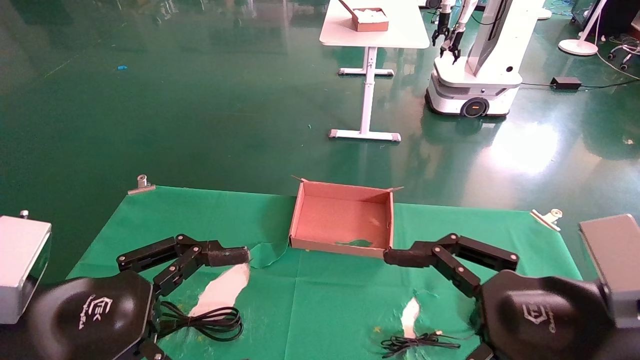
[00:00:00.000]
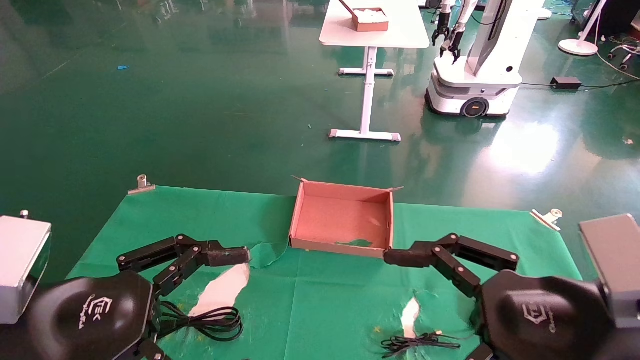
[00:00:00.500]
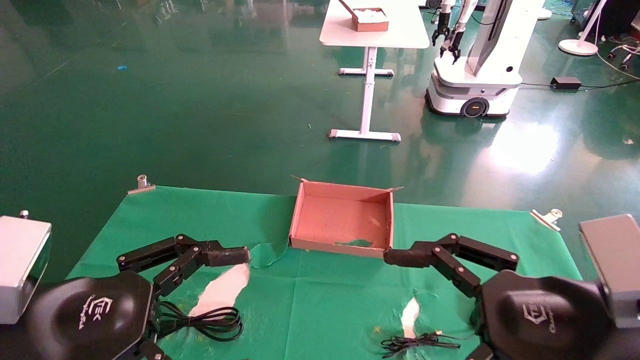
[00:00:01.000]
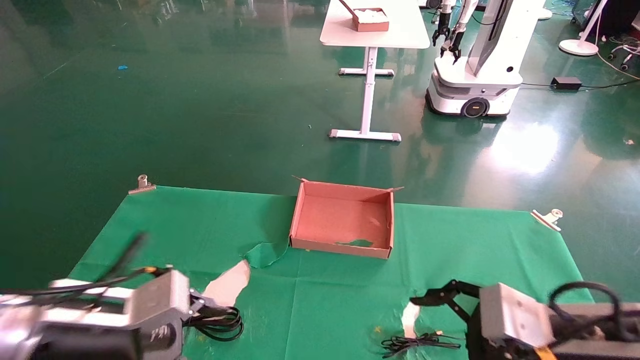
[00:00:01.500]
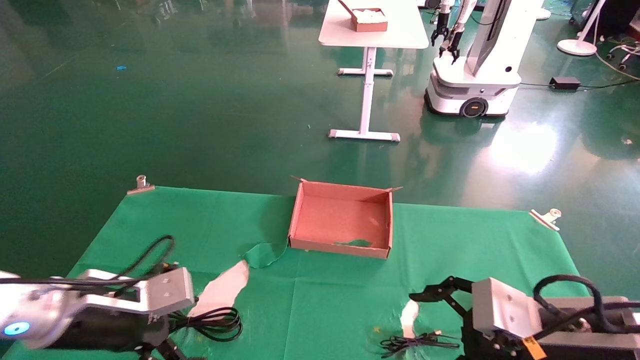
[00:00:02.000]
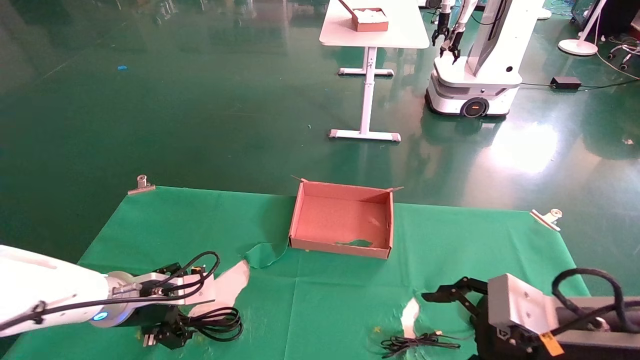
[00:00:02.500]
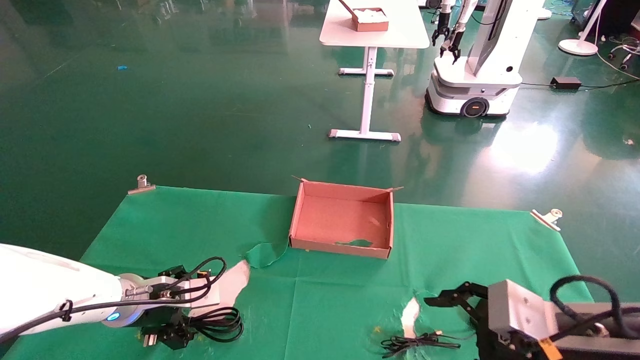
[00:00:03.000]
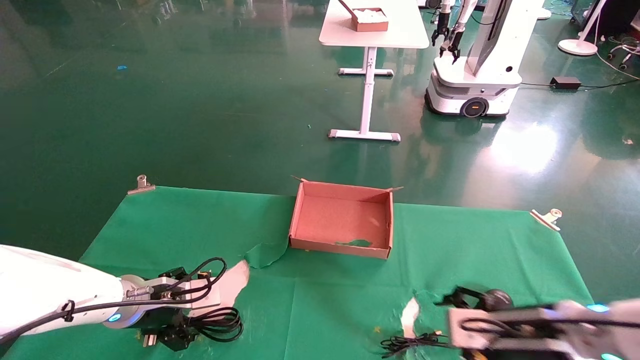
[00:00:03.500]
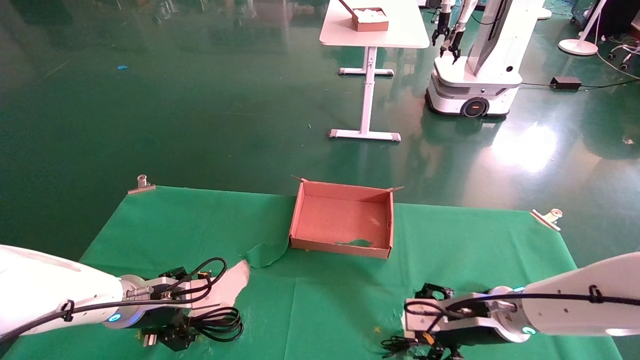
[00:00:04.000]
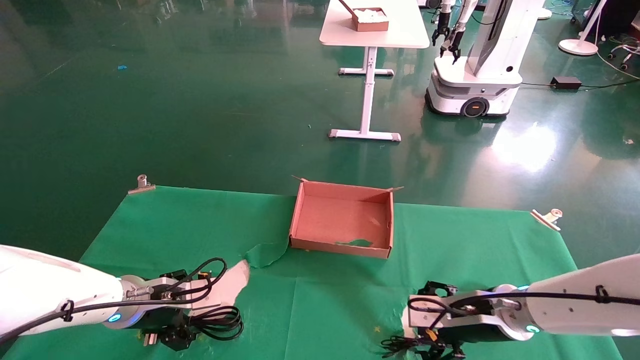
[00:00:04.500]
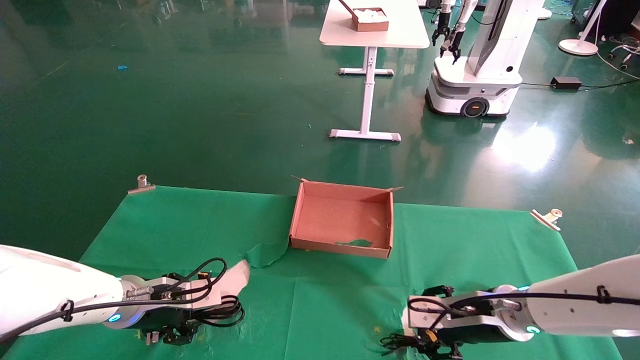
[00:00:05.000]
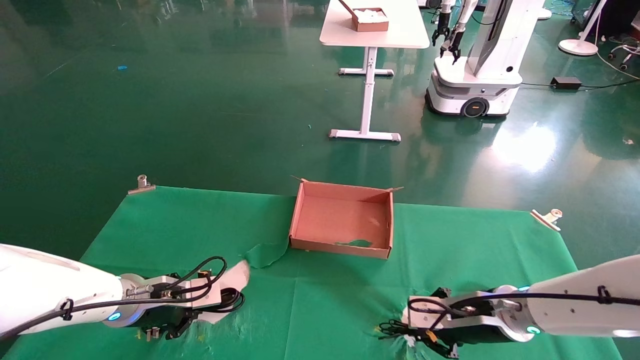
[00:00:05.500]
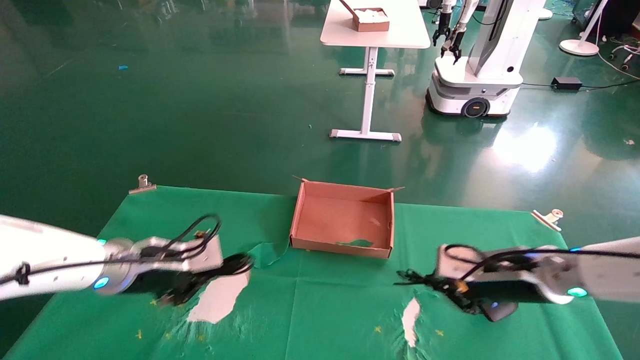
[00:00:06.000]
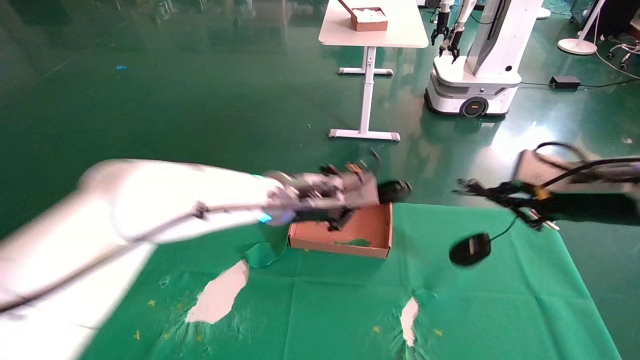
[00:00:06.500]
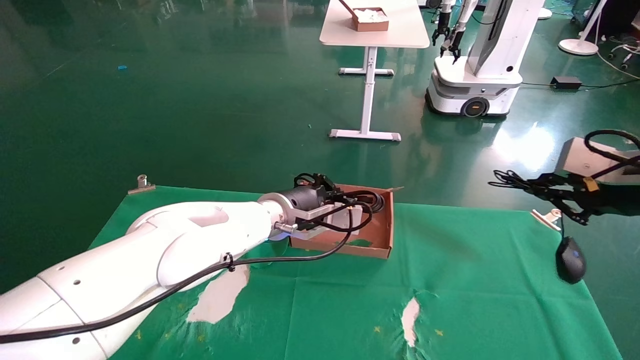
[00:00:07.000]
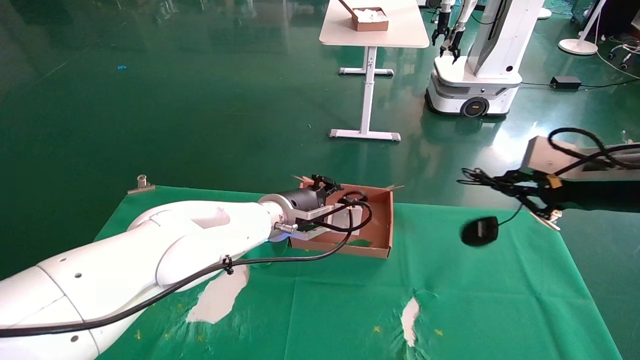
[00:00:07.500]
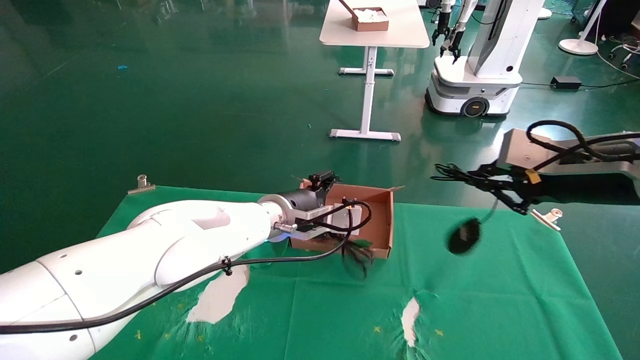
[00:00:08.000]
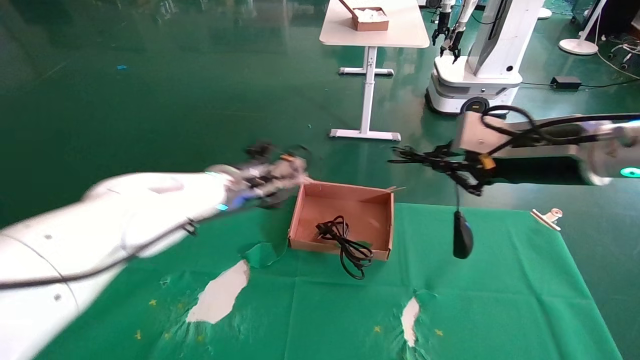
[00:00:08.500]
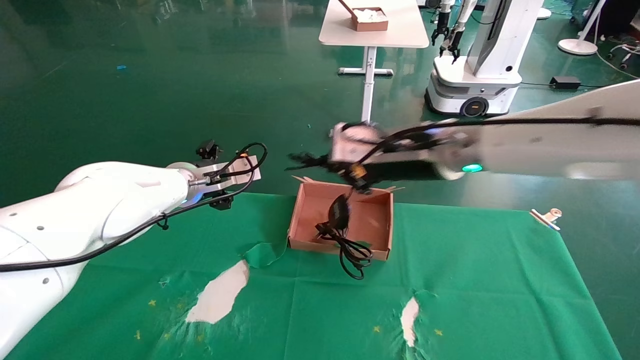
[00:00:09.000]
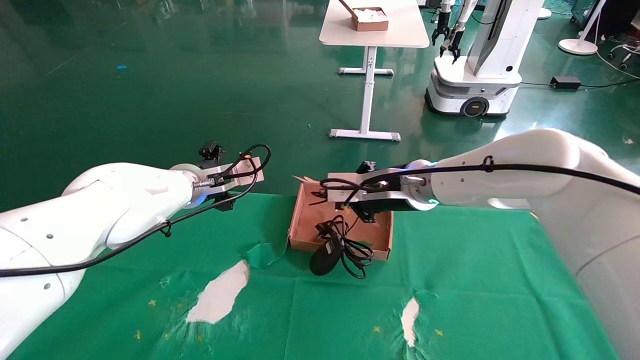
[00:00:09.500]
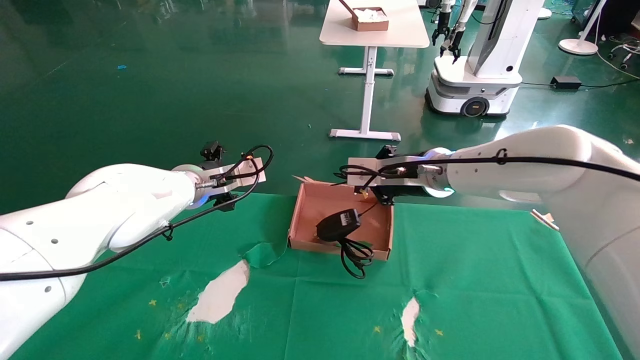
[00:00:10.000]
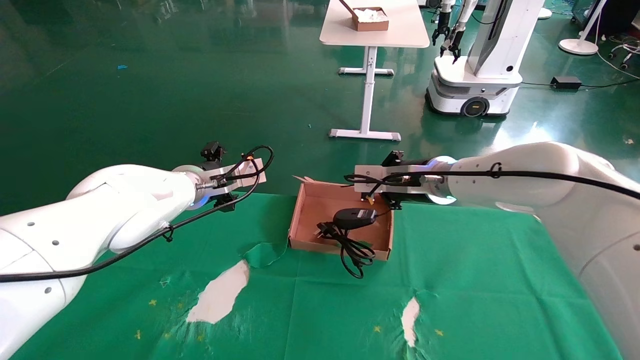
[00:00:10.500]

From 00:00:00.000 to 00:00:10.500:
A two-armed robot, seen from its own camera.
Step, from 00:00:01.500 to 00:00:05.500: Grab and lift both the mouse and power cord from the accessory packaging area at the same time.
From 00:00:00.000 to 00:00:02.000: The right gripper goes some 10 cm forward and downward. Meanwhile the left gripper goes some 15 cm forward and downward.
From 00:00:02.000 to 00:00:04.000: The right gripper is displaced forward and downward by roughly 15 cm; the left gripper moves forward, about 10 cm.
From 00:00:04.000 to 00:00:06.500: The left gripper heads to the right and upward, covering about 25 cm, and closes up; the right gripper goes roughly 20 cm upward and to the right, and closes.
From 00:00:06.500 to 00:00:08.500: The right gripper goes roughly 10 cm to the left and upward; the left gripper shifts some 10 cm to the left and forward, and opens its fingers.
From 00:00:08.500 to 00:00:10.500: The right gripper shifts some 20 cm forward, to the left and downward.

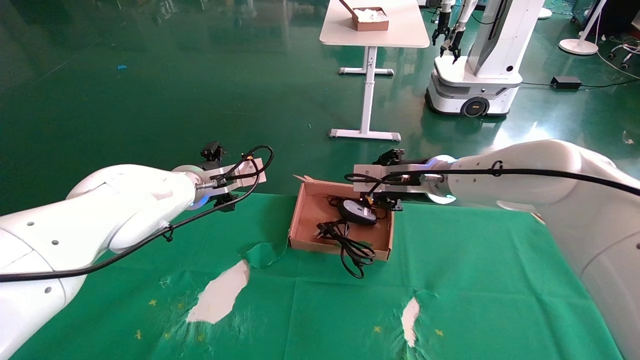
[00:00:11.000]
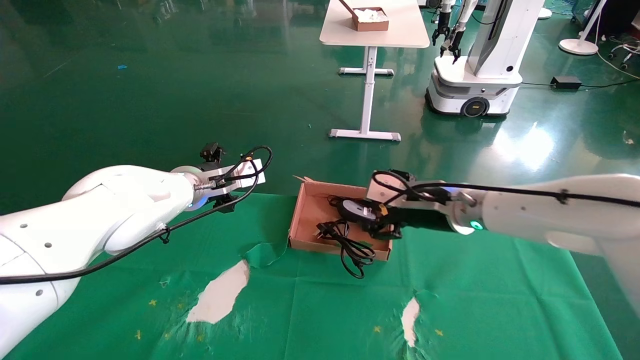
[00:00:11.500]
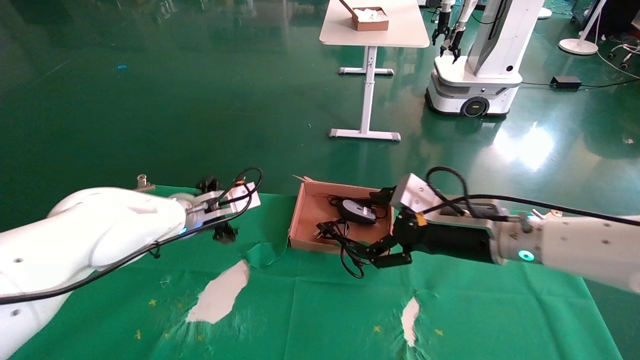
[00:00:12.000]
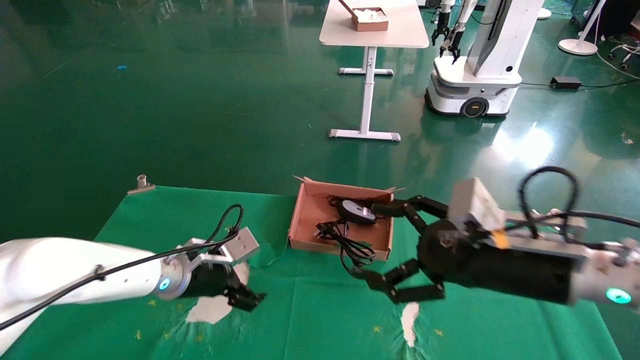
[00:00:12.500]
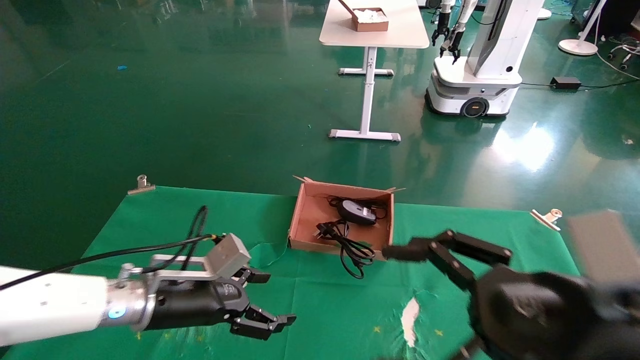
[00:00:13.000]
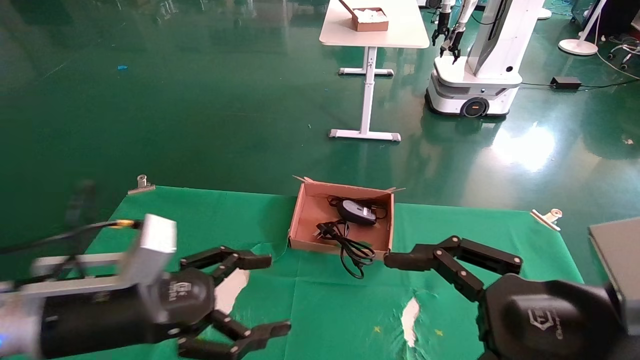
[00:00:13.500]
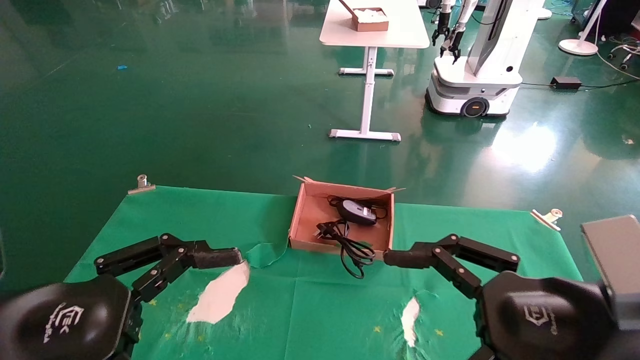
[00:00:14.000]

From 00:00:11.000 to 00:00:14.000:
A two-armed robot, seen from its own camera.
From 00:00:11.000 to 00:00:12.500: The right gripper heads backward and to the right, covering roughly 20 cm, and opens up. Meanwhile the left gripper moves downward and backward, roughly 15 cm.
From 00:00:12.500 to 00:00:14.000: The left gripper travels backward by some 25 cm; the right gripper is displaced backward by approximately 10 cm.

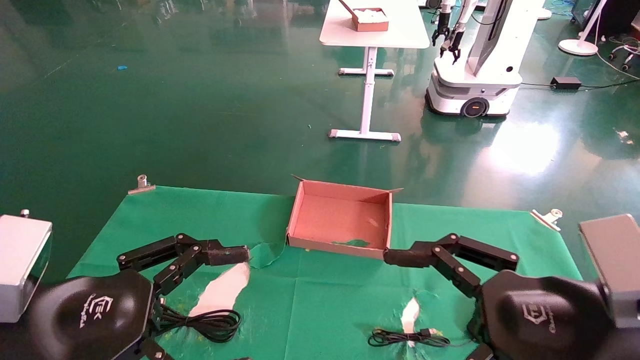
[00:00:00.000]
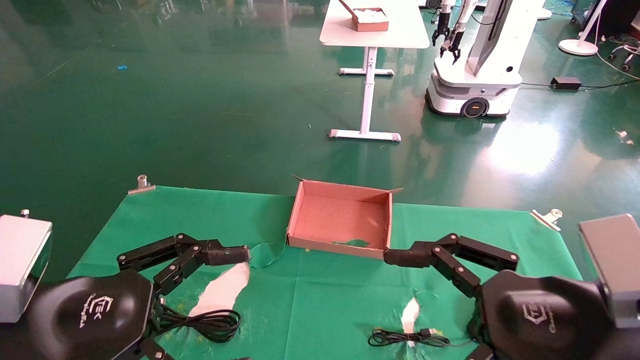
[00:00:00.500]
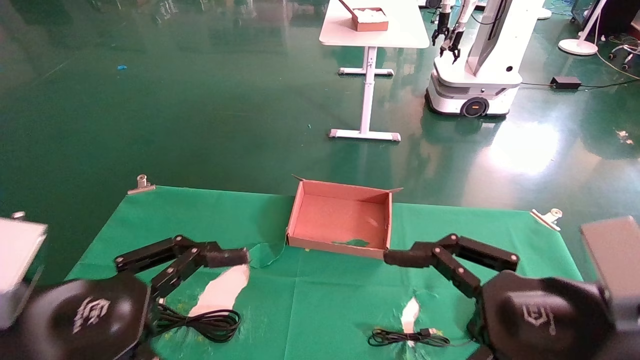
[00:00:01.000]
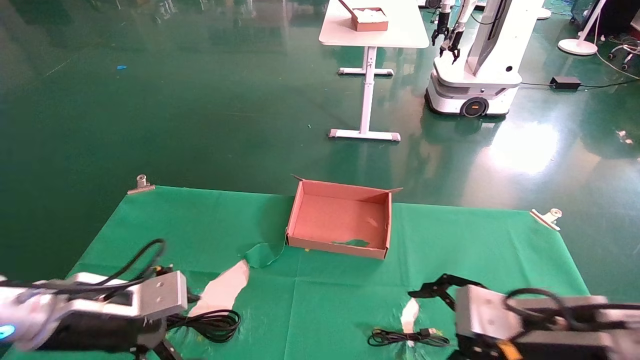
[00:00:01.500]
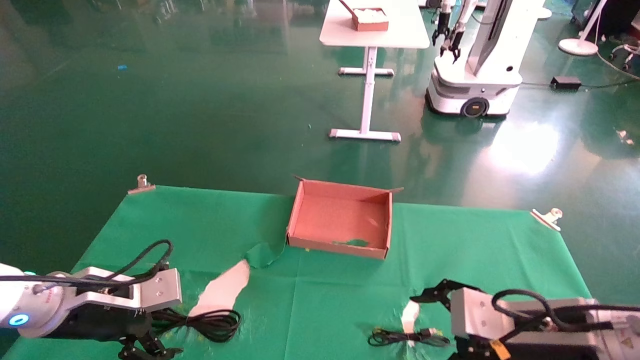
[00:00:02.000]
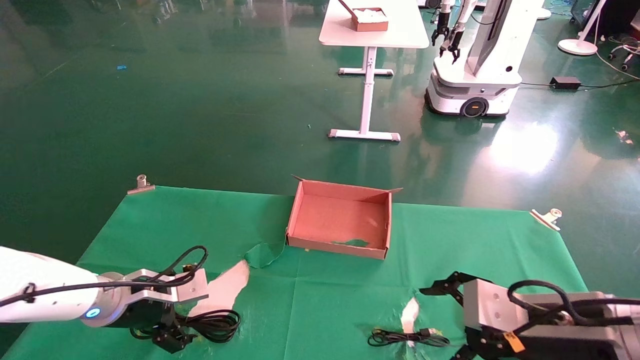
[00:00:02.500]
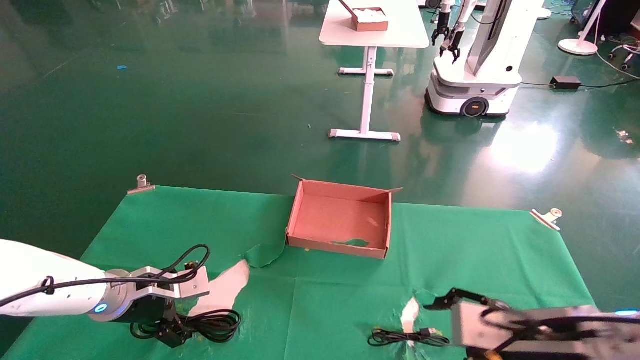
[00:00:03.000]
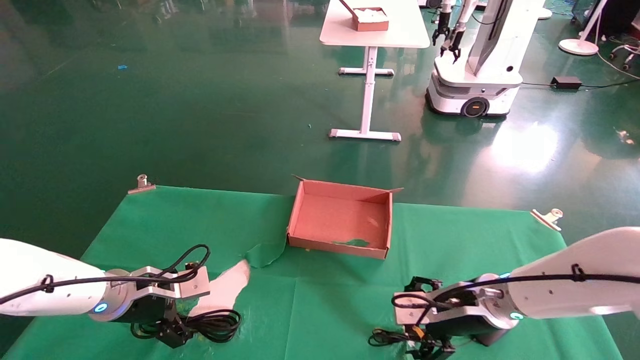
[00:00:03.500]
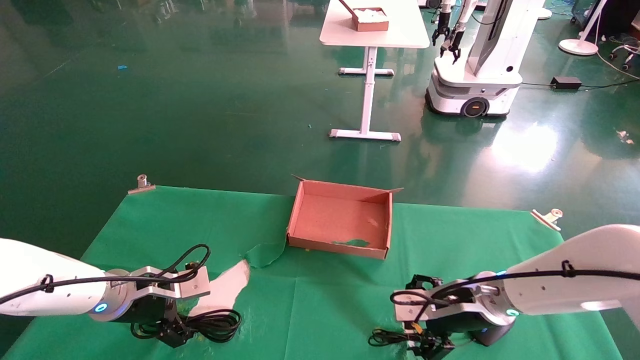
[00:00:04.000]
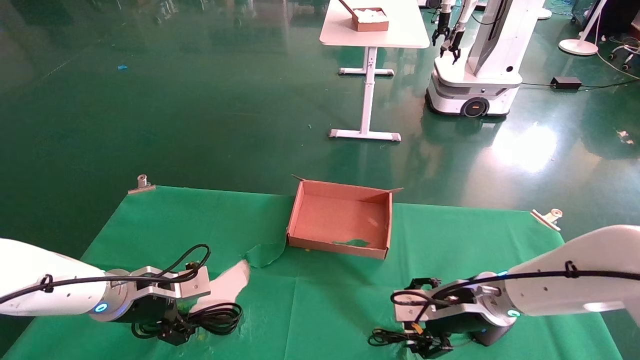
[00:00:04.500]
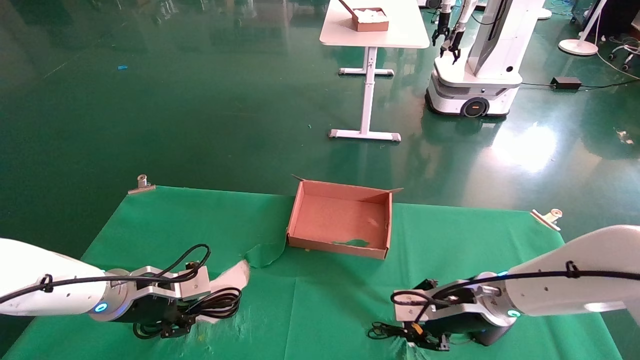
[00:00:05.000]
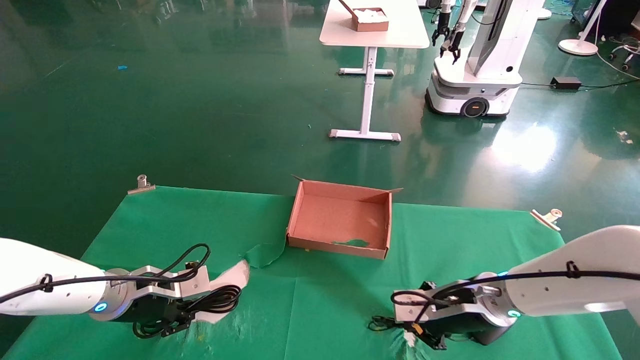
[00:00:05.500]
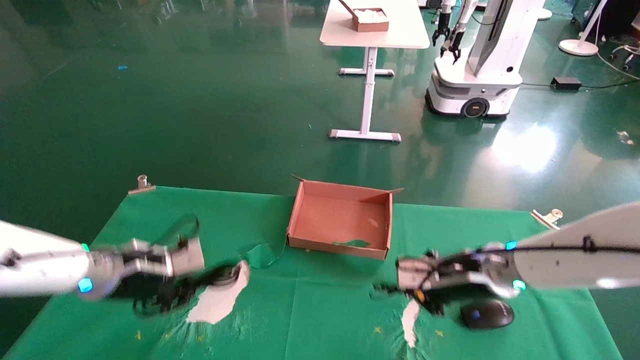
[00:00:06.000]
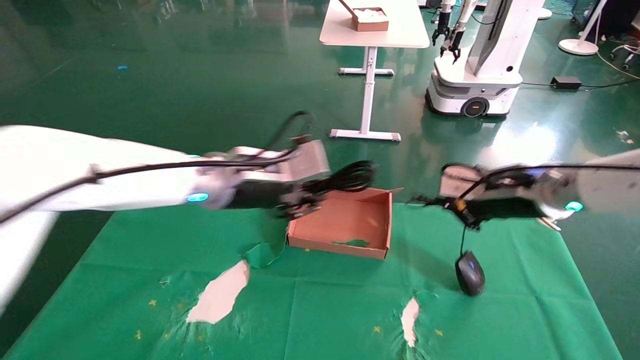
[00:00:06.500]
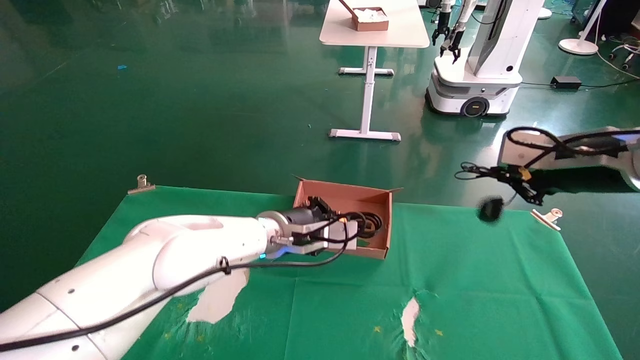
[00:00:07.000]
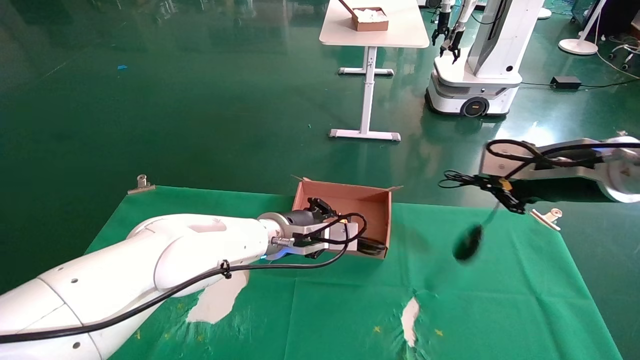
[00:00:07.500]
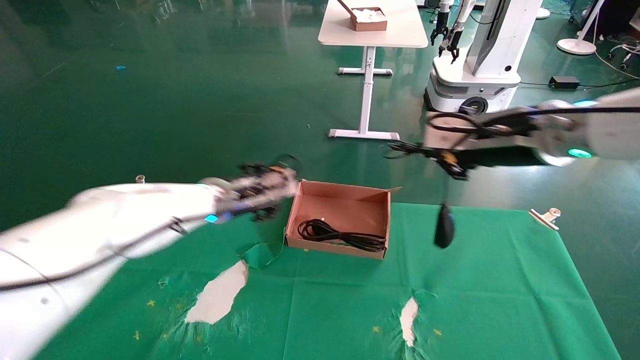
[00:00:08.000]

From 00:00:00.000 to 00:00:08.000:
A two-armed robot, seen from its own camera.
Step, from 00:00:01.500 to 00:00:06.000: Grab and lift both the mouse and power cord from the accessory packaging area at the same time.
From 00:00:00.000 to 00:00:02.000: Both grippers travel together forward and downward, about 15 cm.
From 00:00:02.000 to 00:00:04.000: The right gripper goes some 15 cm forward; the left gripper moves forward, about 10 cm.
From 00:00:04.000 to 00:00:06.000: The grippers both shift upward by approximately 5 cm. The left gripper closes its fingers. Meanwhile the right gripper closes up.
From 00:00:06.000 to 00:00:08.000: The right gripper heads upward, covering some 20 cm. The left gripper heads to the right and forward, covering about 15 cm, and opens.
